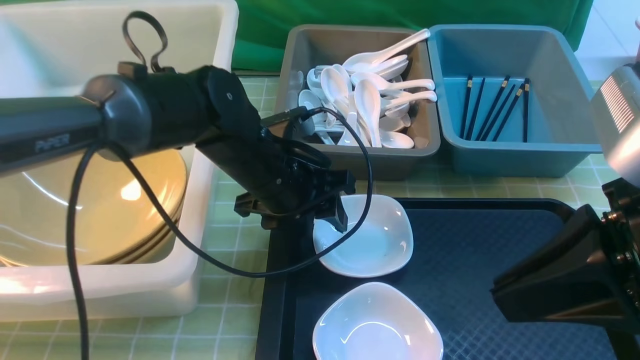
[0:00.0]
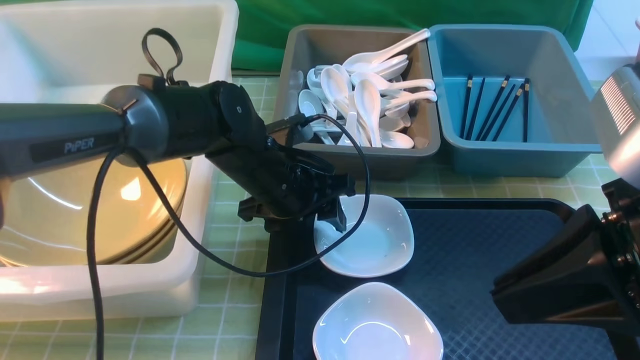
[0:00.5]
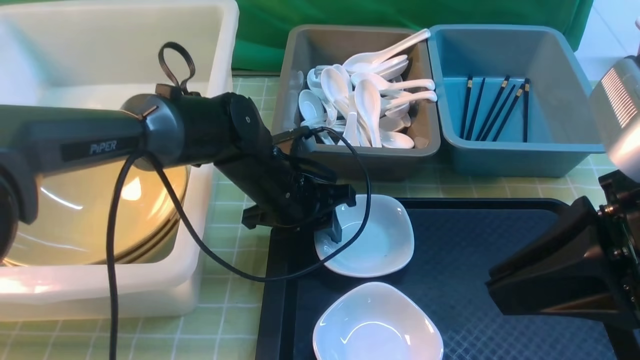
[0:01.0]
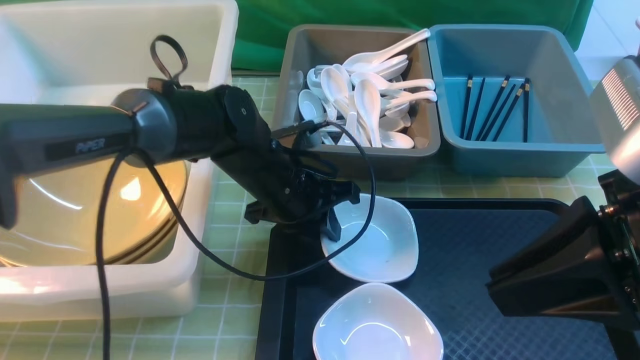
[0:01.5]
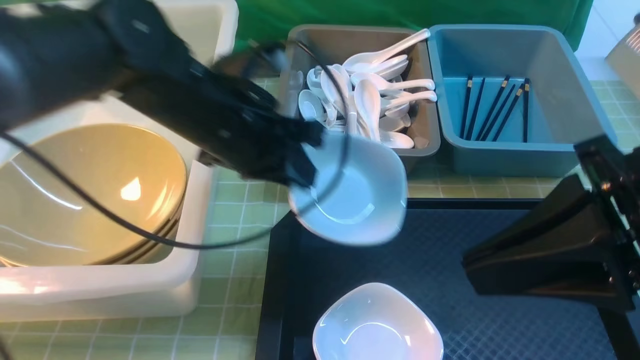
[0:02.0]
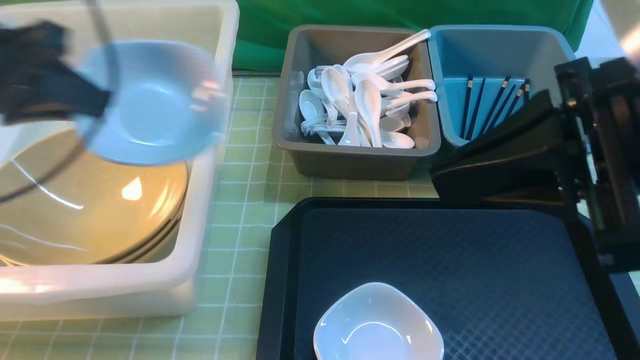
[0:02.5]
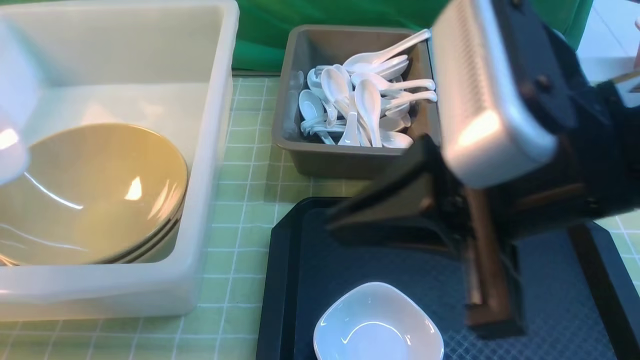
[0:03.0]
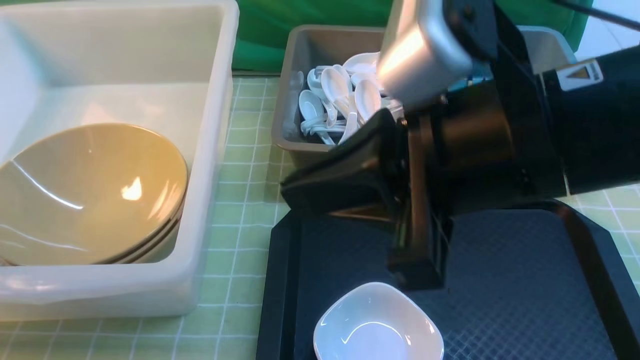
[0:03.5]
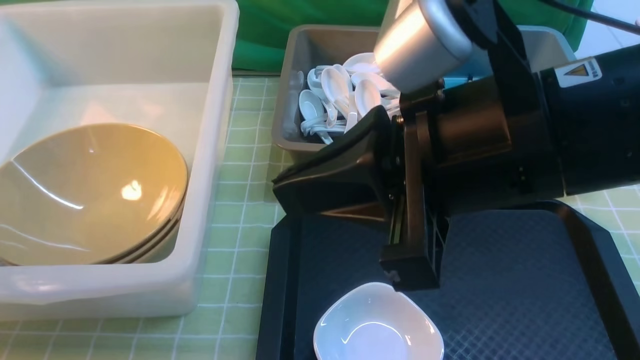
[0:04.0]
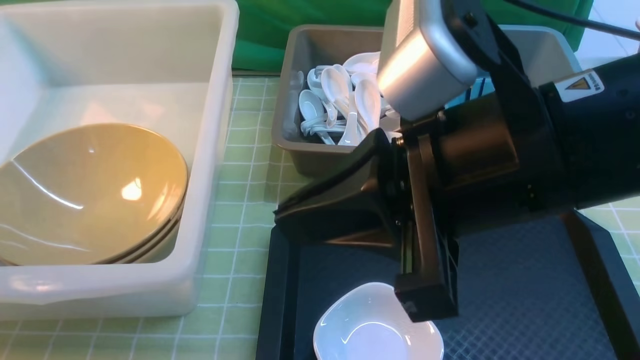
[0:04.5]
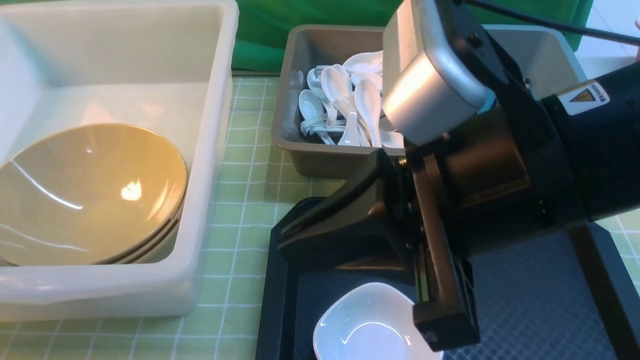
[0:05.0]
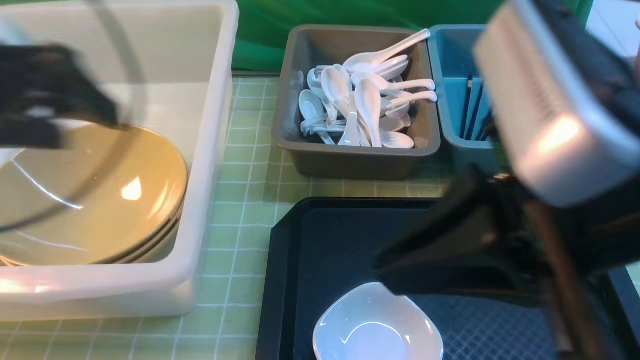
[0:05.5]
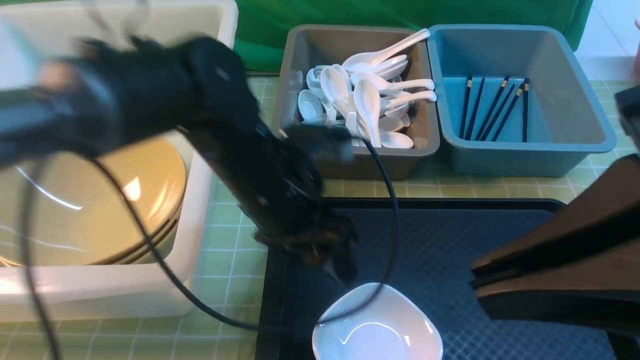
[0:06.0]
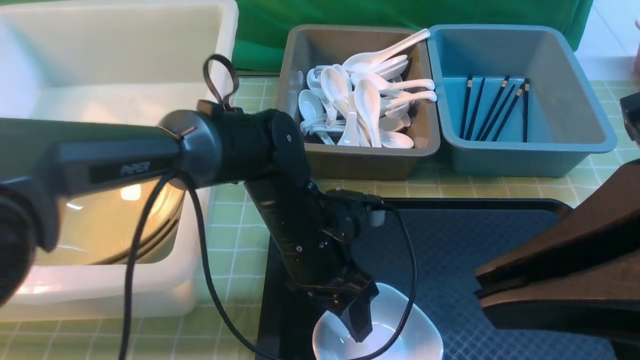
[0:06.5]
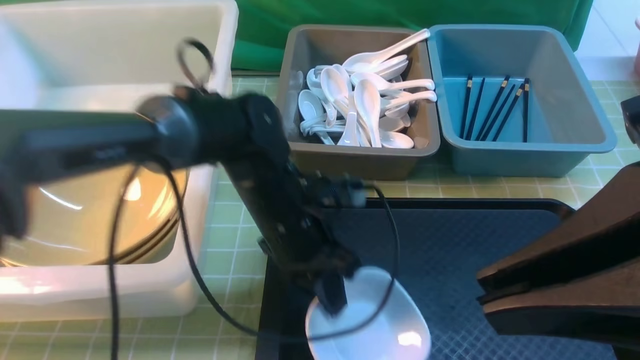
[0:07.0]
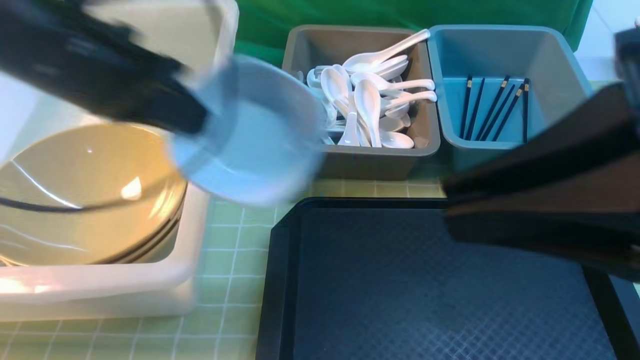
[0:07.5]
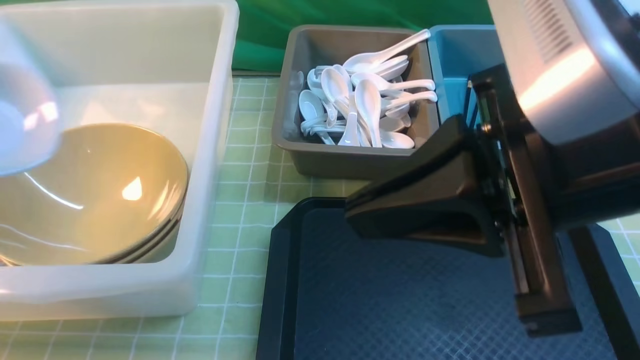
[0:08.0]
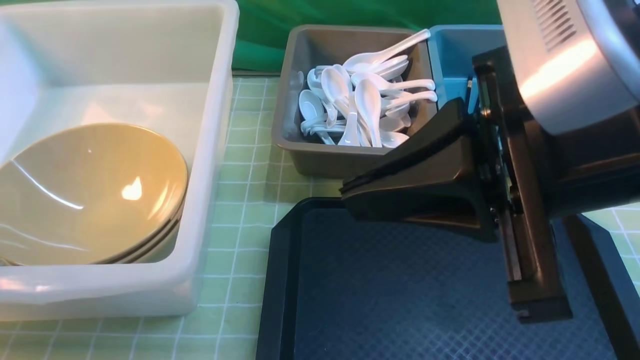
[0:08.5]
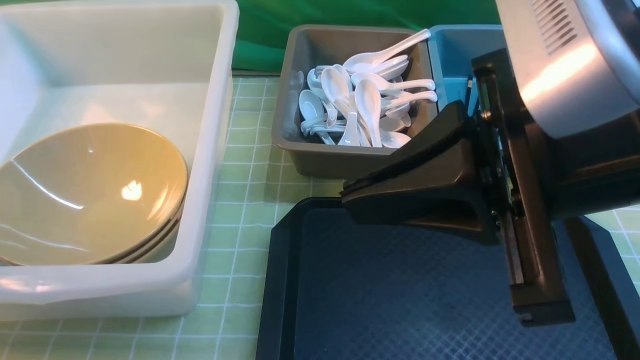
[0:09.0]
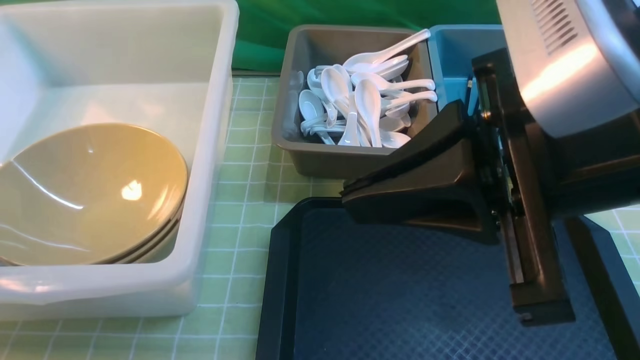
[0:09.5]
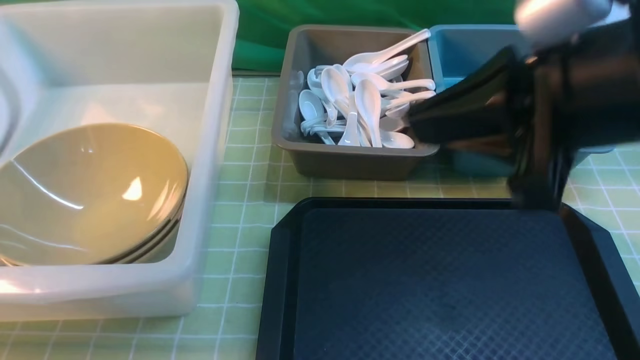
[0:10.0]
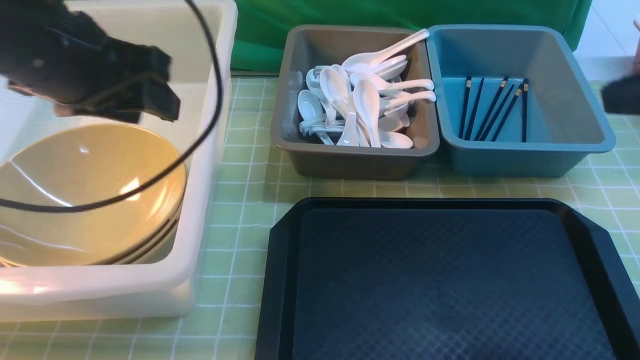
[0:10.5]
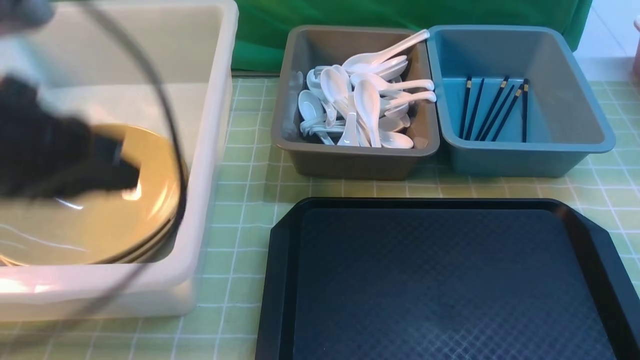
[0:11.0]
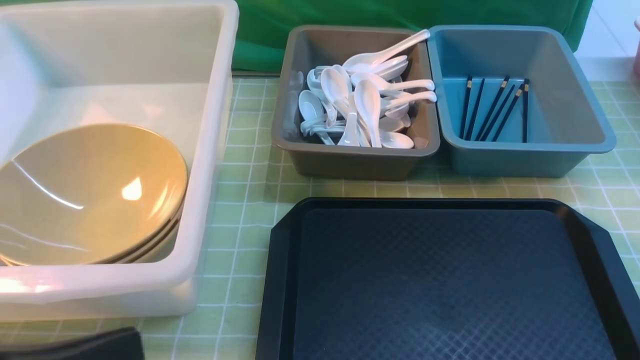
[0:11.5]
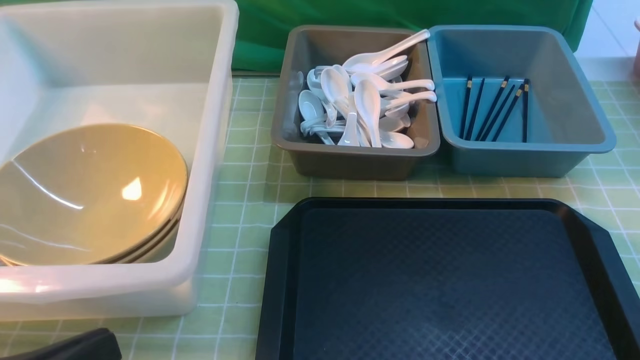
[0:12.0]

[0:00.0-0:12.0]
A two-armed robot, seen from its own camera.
Task of the whole recording: on green table put chopsticks spoon bowls plates into blue grey white boxes.
Step, 0:00.0 to 0:02.0: use the left arm to grab the plate.
Step, 0:02.5 to 0:04.5: use the left arm to put the plate into the large storage box on the left.
Step, 0:05.0 to 0:07.0: use the left arm to grab the plate.
Step, 0:07.5 to 0:11.0: use the left arm to put the plate into the large storage box on the left.
0:00.0 to 0:02.0: The left gripper is displaced upward and to the left by approximately 10 cm, and closes its fingers.
0:02.0 to 0:04.0: The left gripper moves to the left, approximately 35 cm. Meanwhile the right gripper shifts roughly 10 cm to the left.
0:04.0 to 0:06.0: The right gripper goes approximately 10 cm backward and to the right. The left gripper goes some 40 cm to the right, and opens up.
0:06.0 to 0:08.0: The right gripper travels forward by about 5 cm, while the left gripper travels to the left by roughly 35 cm, and closes.
0:08.0 to 0:10.0: The left gripper opens. The right gripper shifts by some 5 cm.
0:10.0 to 0:12.0: The right gripper moves backward, downward and to the right, approximately 25 cm. Meanwhile the left gripper travels backward and to the right by roughly 30 cm, and closes.

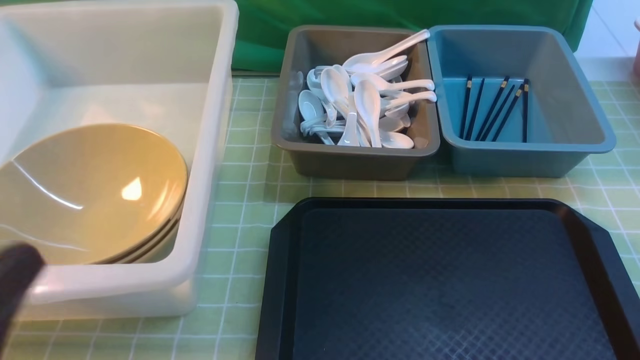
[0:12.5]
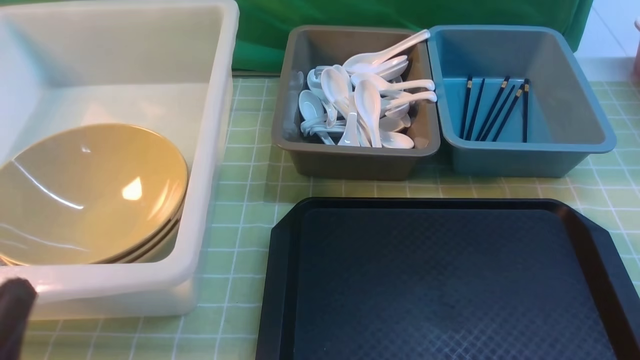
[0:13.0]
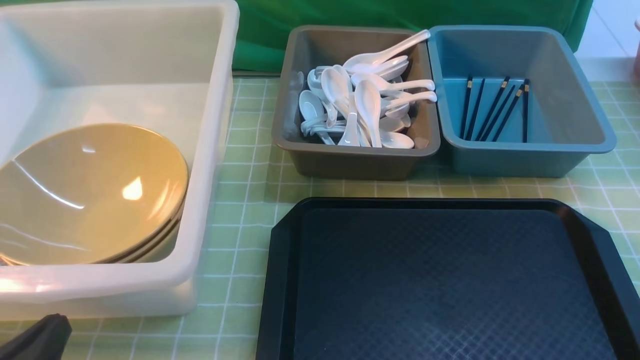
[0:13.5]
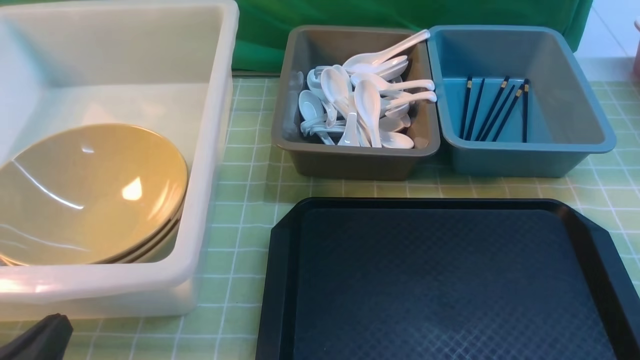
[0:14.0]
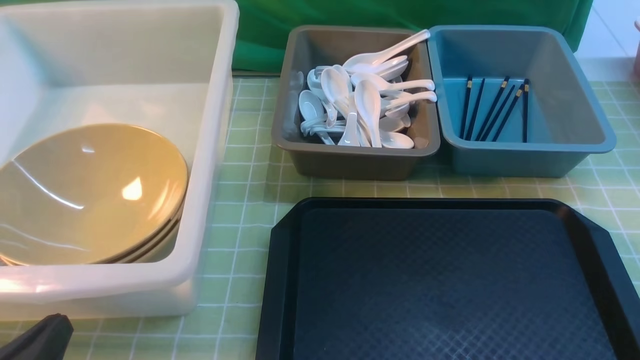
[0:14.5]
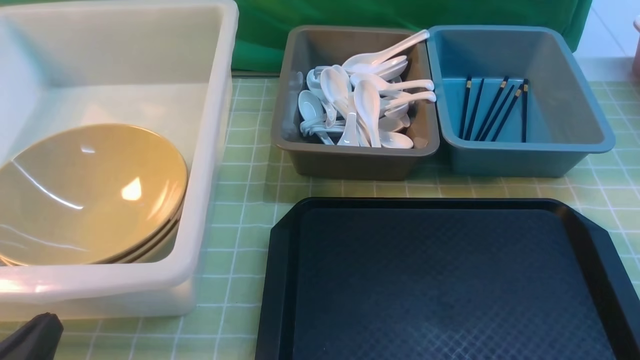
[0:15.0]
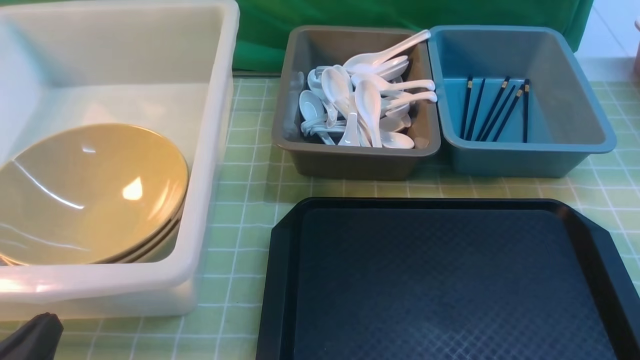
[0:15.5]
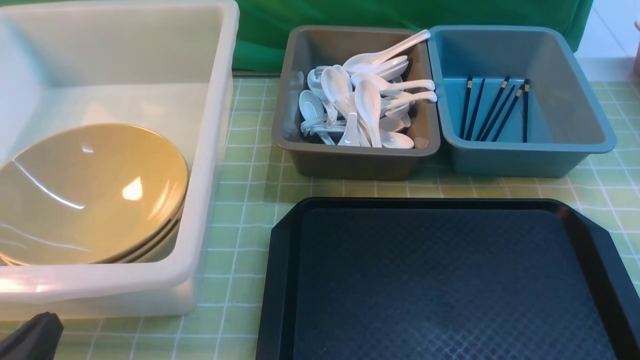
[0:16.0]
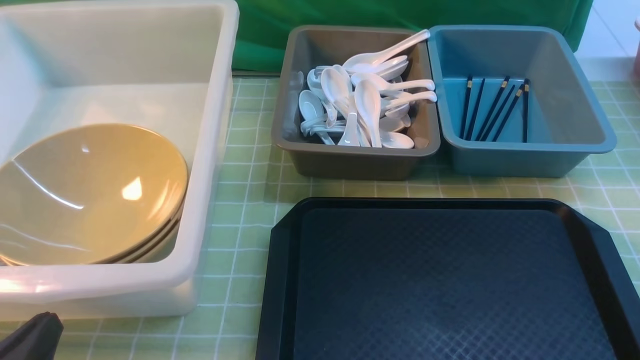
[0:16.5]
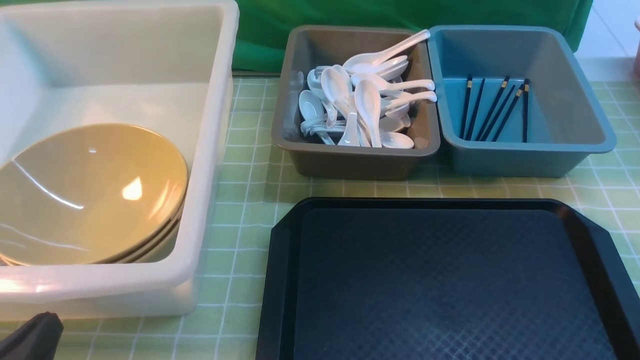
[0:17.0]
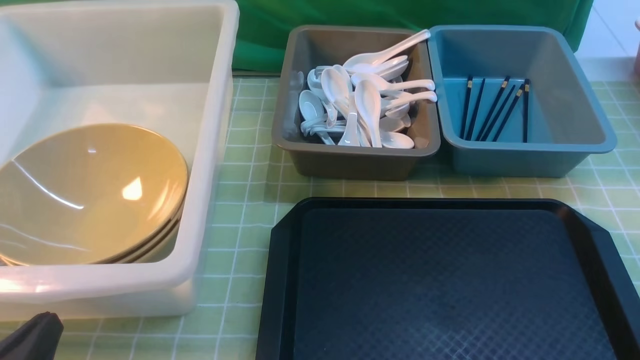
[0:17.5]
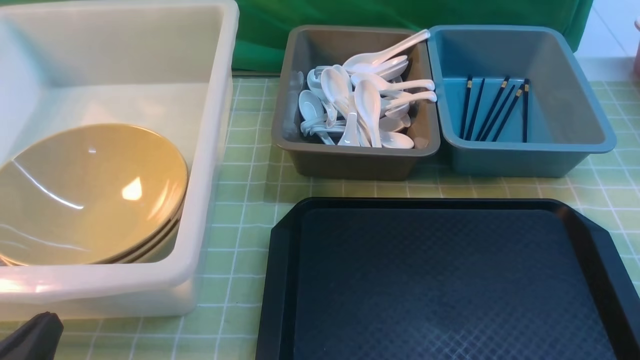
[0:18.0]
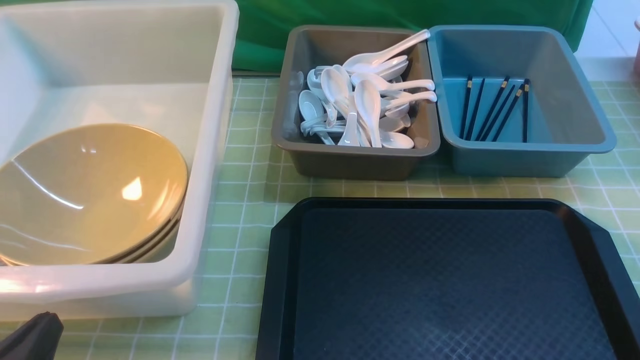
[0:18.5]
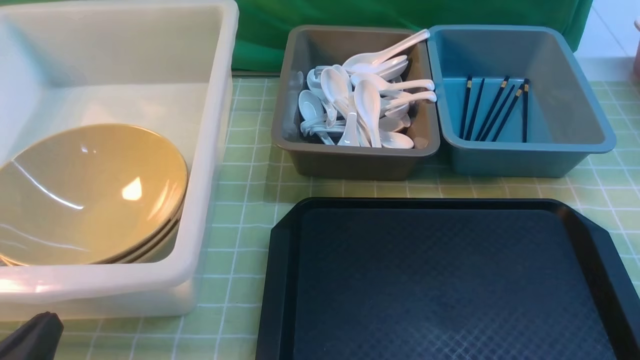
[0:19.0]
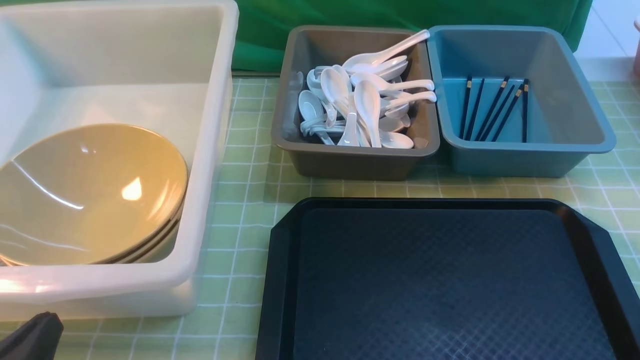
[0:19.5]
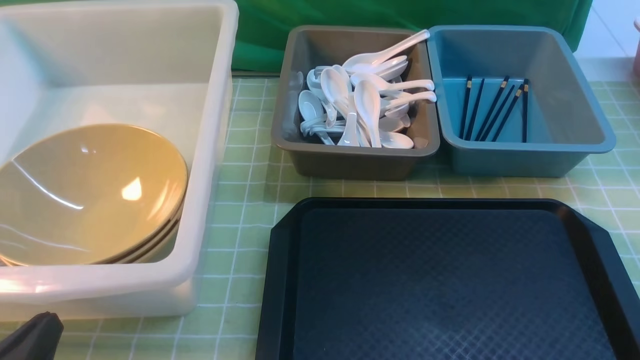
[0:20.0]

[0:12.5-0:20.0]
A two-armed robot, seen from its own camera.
Task of the whole recording: on green table put chopsticks spoon bowls plates into blue grey white boxes.
0:12.5 to 0:14.5: The left gripper heads downward, covering some 10 cm.
0:18.0 to 0:20.0: Neither gripper changes place.
